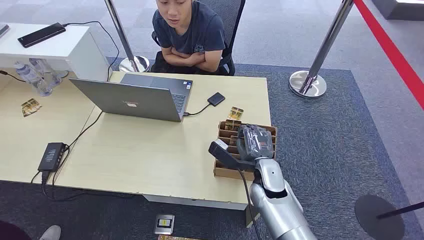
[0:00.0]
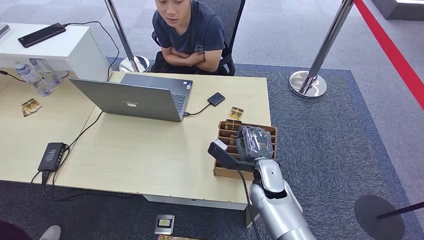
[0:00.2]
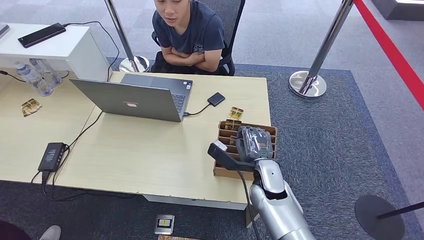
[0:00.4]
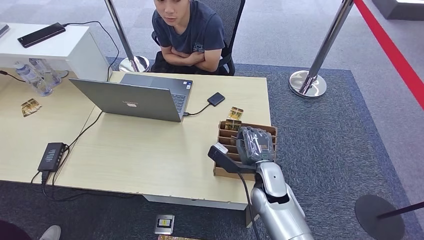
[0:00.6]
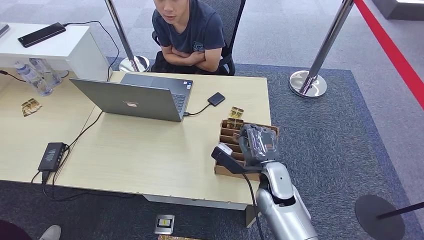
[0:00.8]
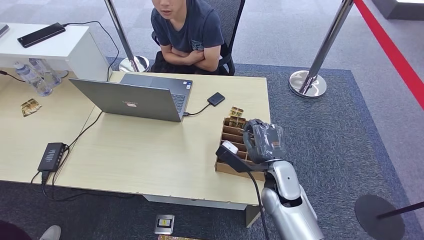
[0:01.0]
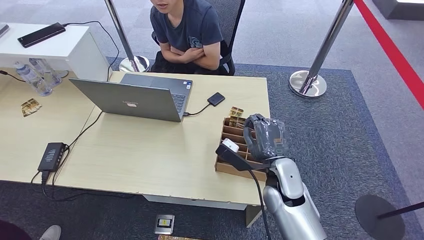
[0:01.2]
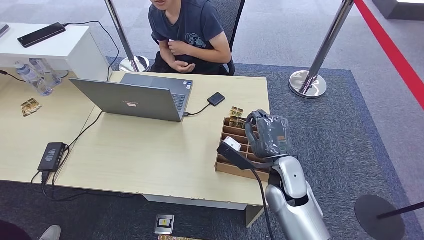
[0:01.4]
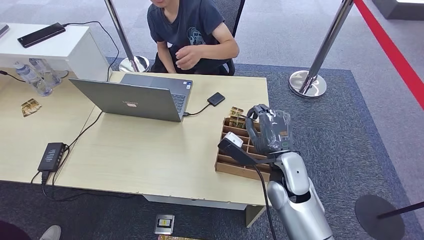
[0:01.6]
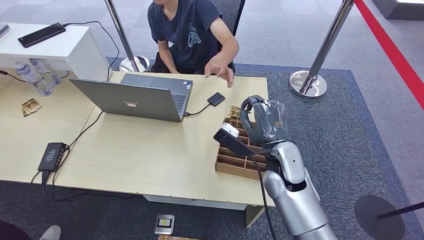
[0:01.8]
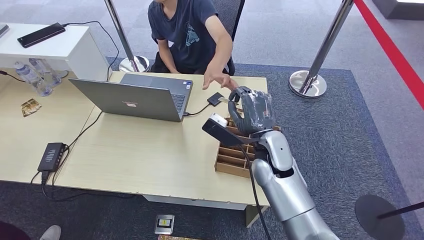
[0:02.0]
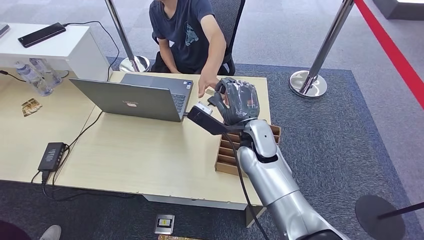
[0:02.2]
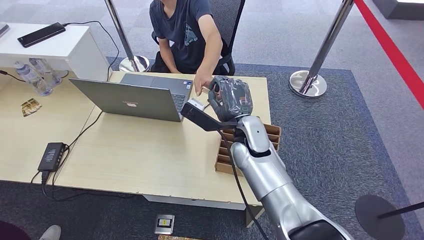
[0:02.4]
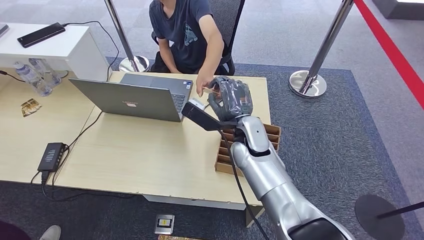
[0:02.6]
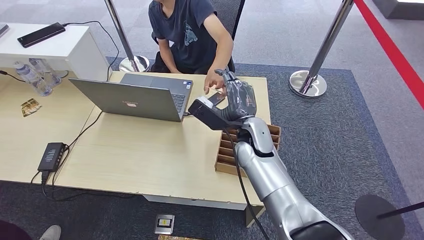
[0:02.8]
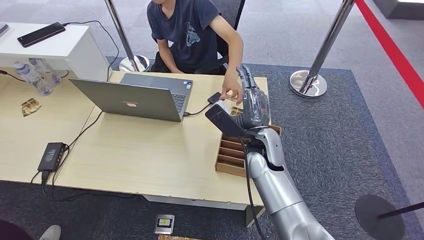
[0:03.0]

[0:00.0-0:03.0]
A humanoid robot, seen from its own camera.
Step, 0:00.0 to 0:01.6: Pick up the key card from the card box.
Step, 0:02.0 to 0:03.0: Hand the key card to the target.
0:01.6 to 0:03.0: The right hand goes roughly 5 cm forward and to the left.

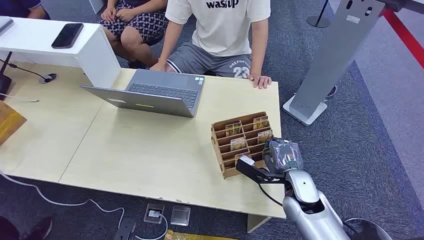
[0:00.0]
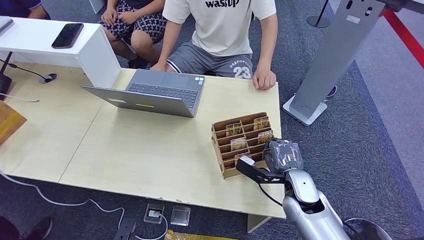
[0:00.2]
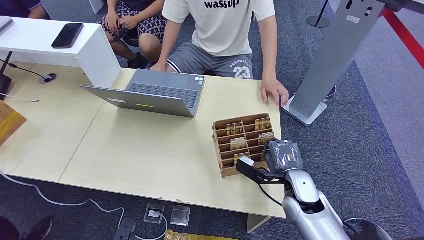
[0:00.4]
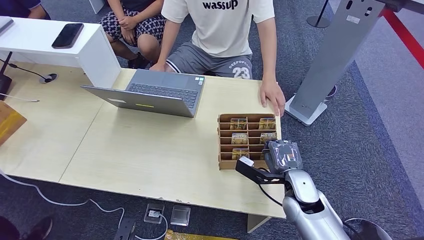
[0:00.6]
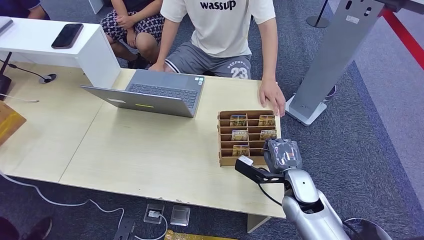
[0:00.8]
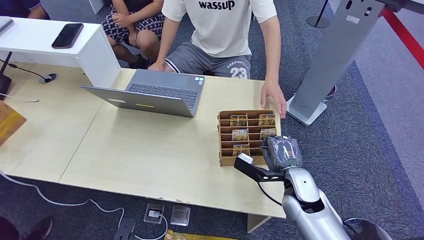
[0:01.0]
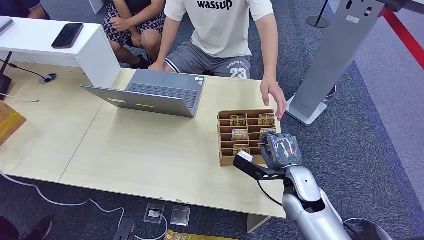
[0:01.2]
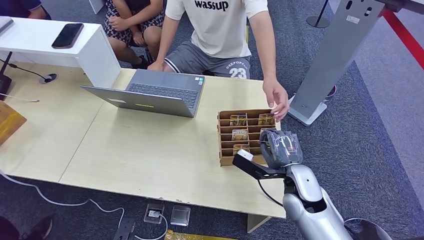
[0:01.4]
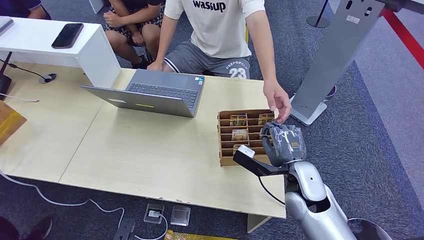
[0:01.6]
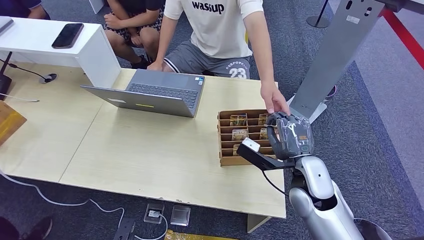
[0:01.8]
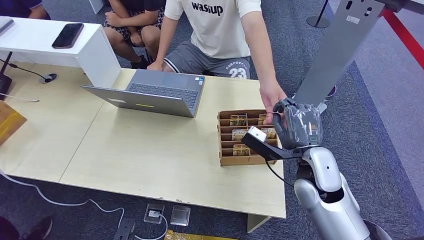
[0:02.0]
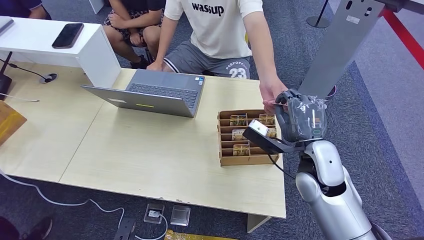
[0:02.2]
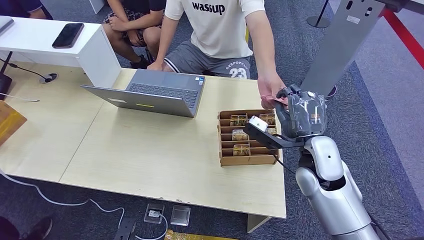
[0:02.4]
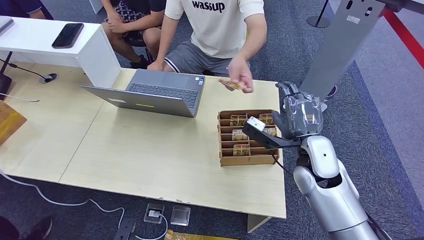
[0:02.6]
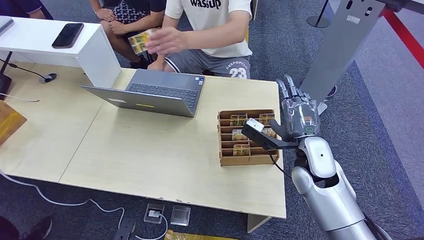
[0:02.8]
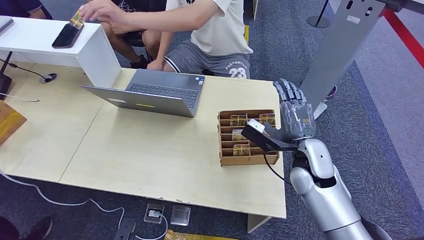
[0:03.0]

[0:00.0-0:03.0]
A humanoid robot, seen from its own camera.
Step, 0:00.0 to 0:01.6: Pick up the key card from the card box.
Step, 0:02.2 to 0:03.0: Hand the key card to the target.
0:01.6 to 0:03.0: The right hand ends up some 5 cm from where it was.

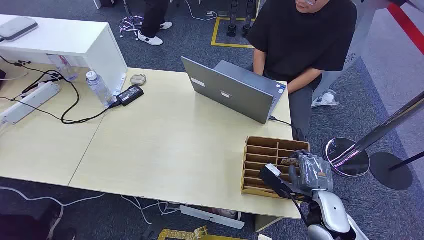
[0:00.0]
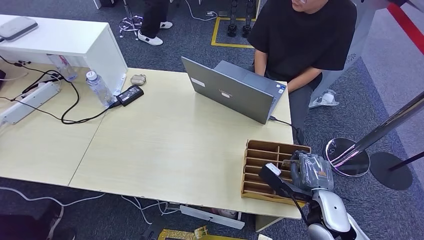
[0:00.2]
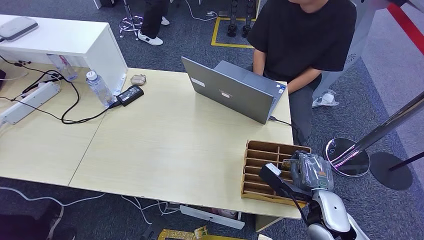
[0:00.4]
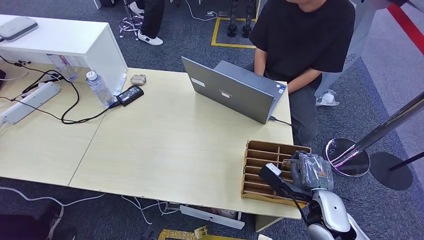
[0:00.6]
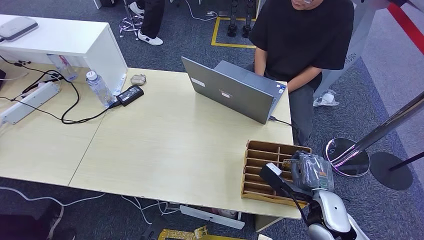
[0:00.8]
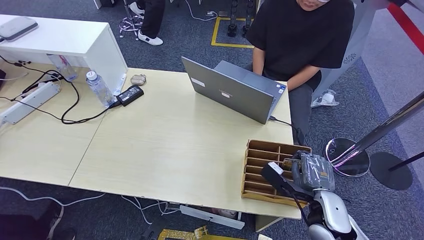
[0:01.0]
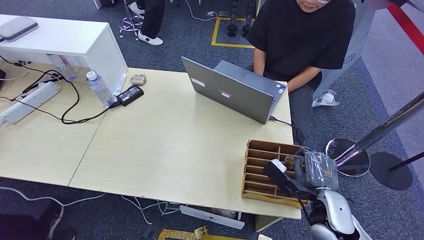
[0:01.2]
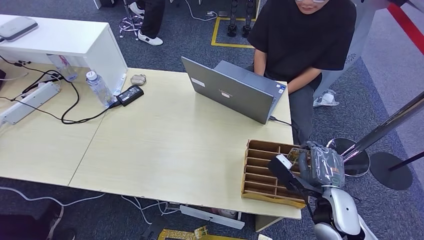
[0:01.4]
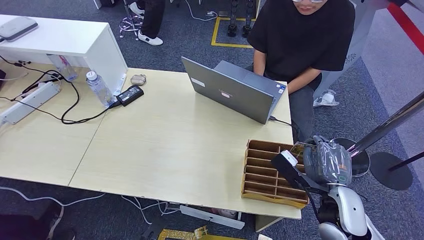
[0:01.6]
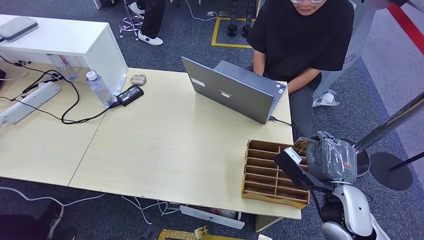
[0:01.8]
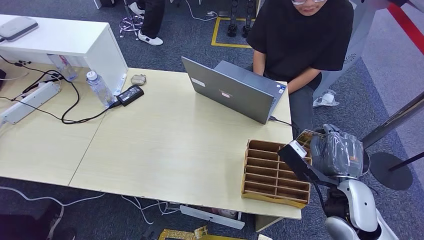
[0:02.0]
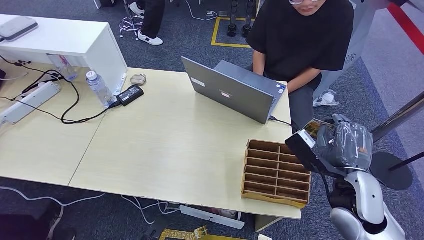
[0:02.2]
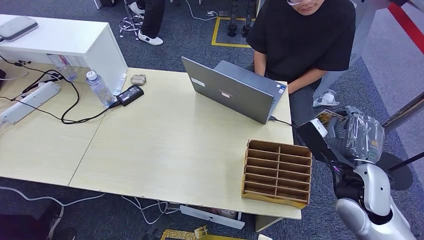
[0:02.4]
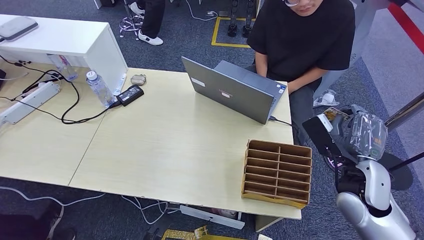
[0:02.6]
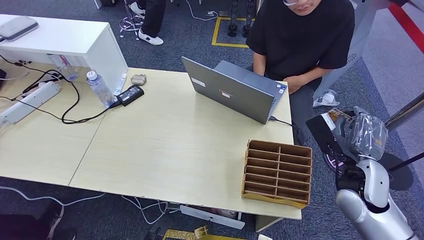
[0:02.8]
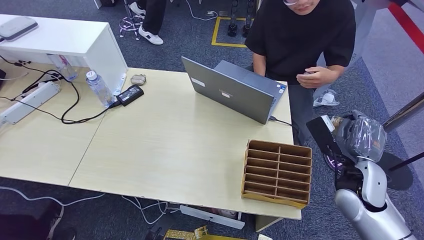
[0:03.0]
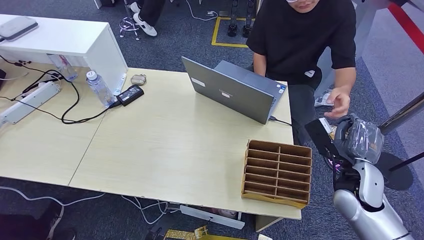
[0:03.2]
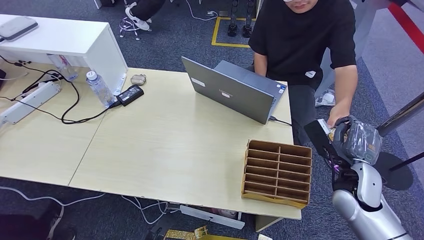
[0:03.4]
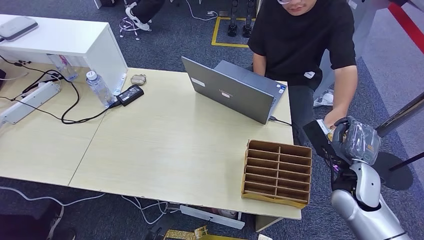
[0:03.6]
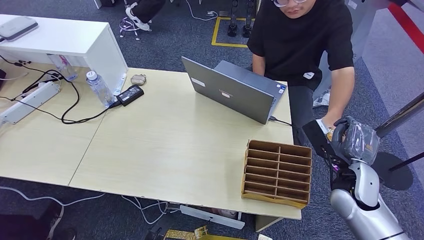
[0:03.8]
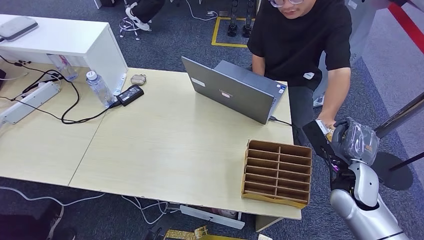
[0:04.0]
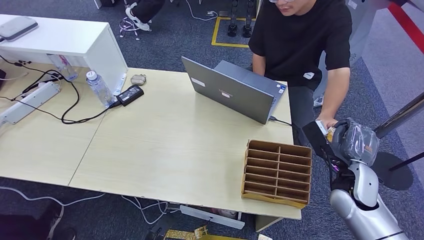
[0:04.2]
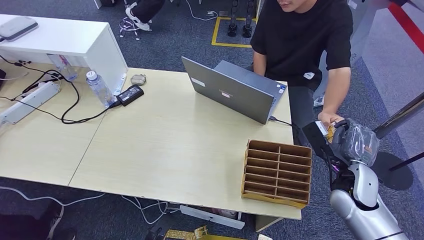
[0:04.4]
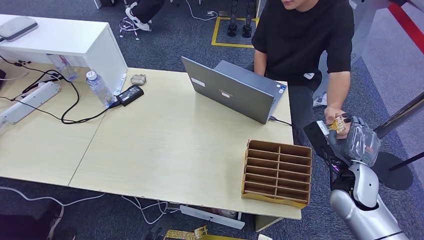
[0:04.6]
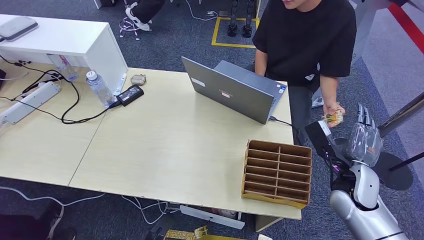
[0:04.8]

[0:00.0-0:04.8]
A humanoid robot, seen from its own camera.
Step, 0:00.0 to 0:02.2: Pick up the key card from the card box.
Step, 0:02.4 to 0:04.8: Hand the key card to the target.
0:01.6 to 0:03.2: The right hand goes about 5 cm forward.
0:03.2 to 0:04.8: The hands move only a little.

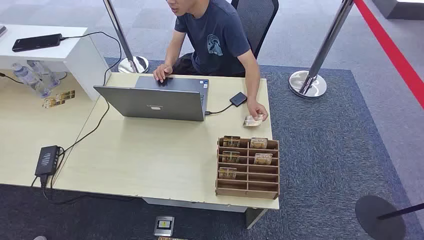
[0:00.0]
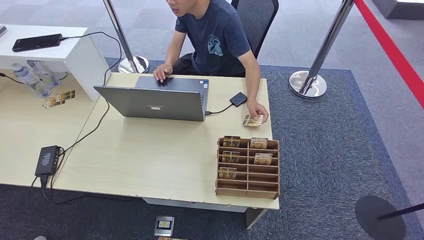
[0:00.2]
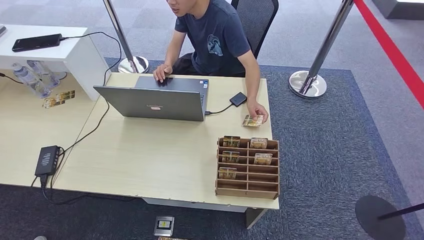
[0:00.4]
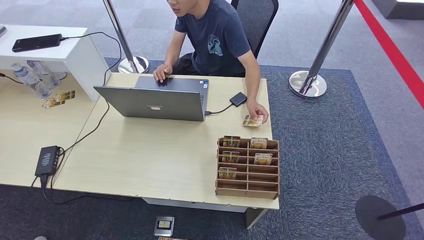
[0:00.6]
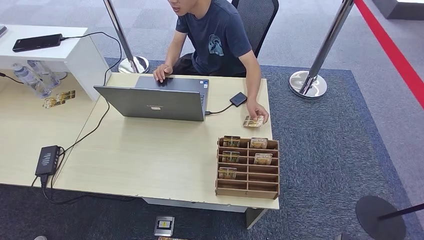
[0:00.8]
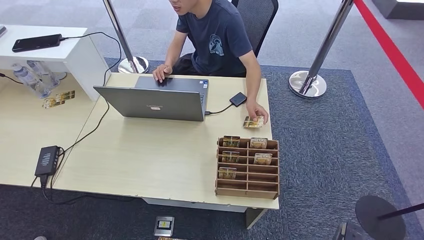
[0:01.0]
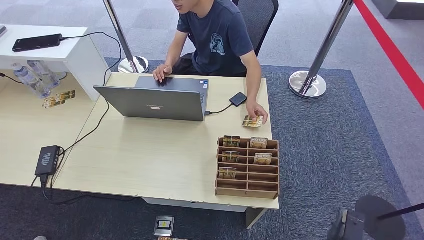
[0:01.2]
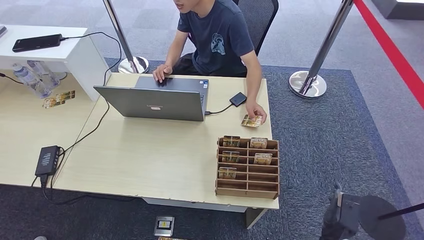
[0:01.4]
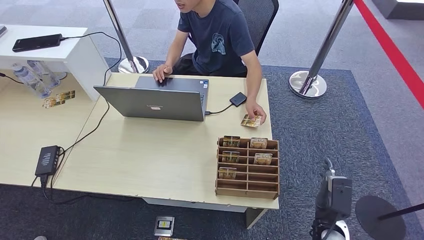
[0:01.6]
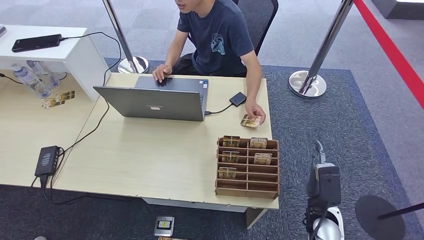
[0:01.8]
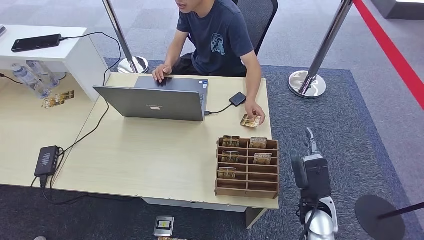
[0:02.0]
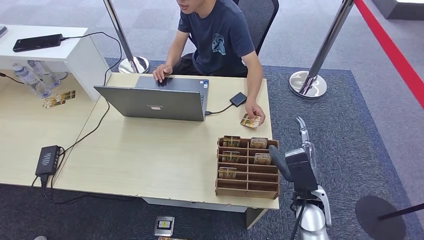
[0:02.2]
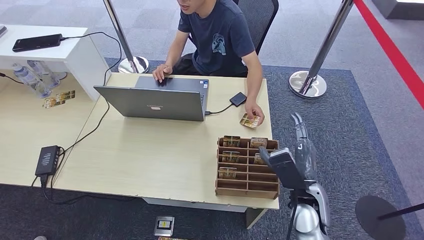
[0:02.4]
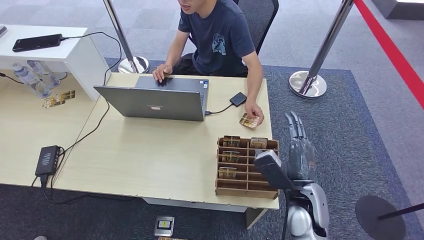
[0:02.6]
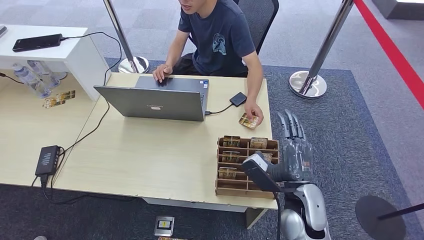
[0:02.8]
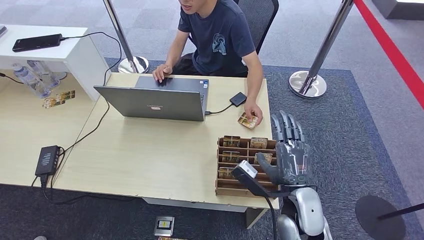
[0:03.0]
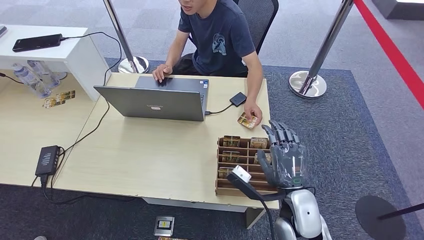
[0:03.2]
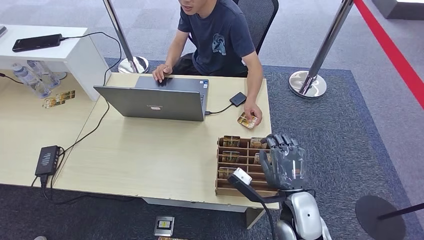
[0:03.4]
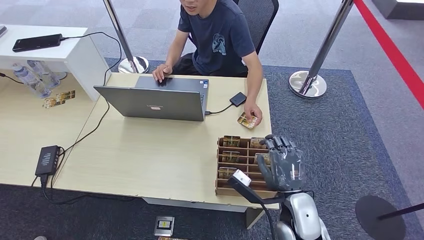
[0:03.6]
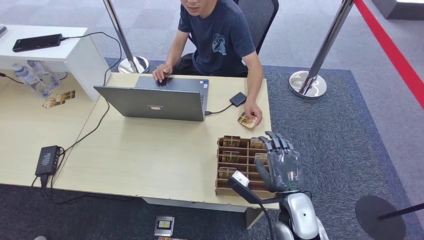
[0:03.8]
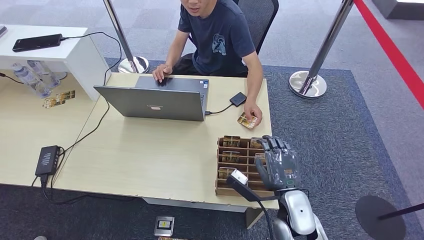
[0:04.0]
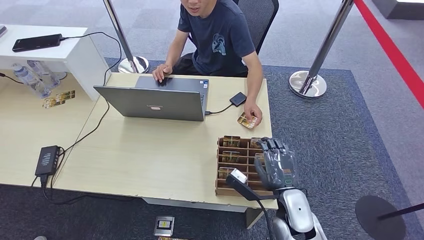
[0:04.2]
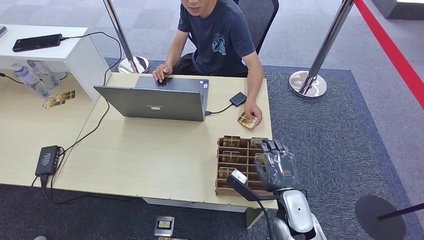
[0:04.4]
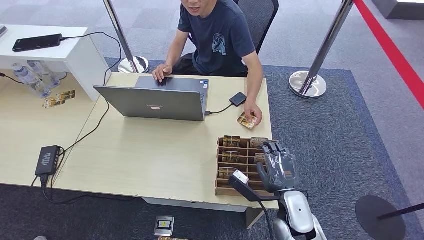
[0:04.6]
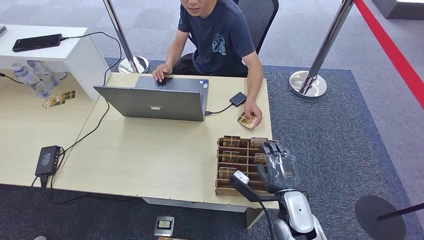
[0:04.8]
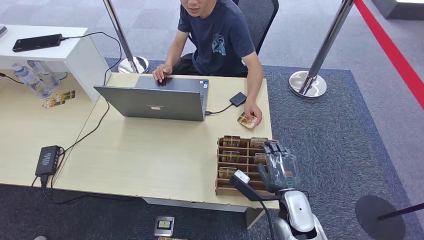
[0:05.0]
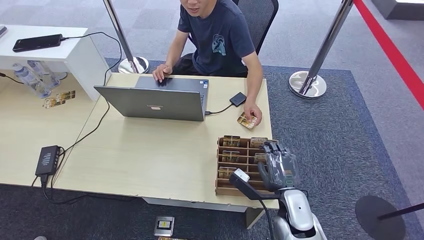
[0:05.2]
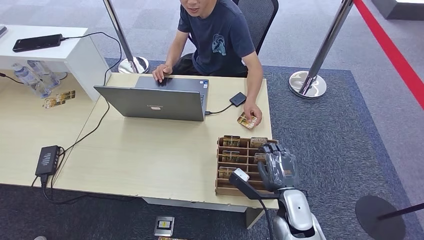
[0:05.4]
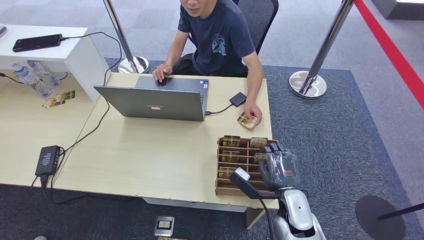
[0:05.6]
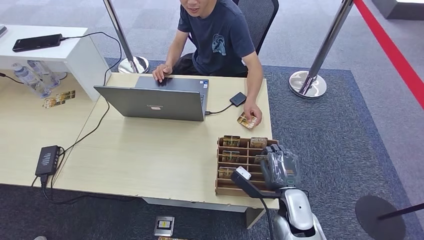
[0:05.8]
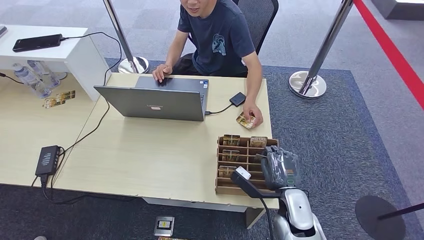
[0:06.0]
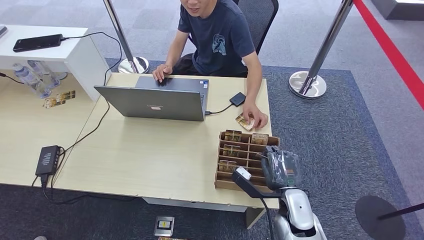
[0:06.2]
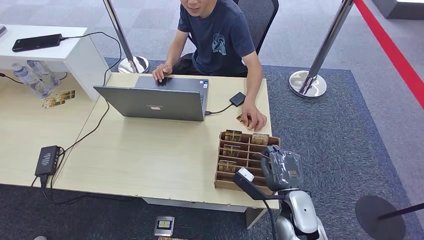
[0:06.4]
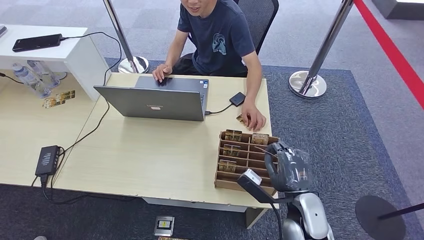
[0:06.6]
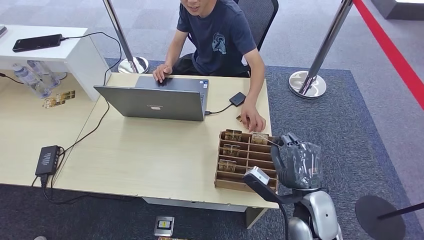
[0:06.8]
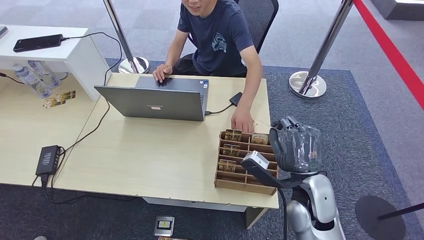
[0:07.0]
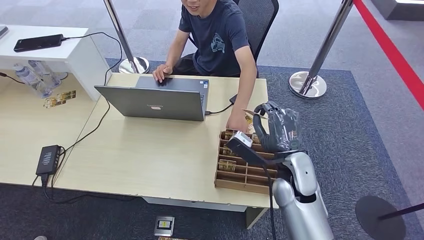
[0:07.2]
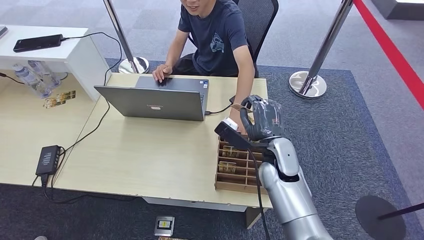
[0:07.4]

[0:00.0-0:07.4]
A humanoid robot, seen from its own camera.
Step, 0:00.0 to 0:07.2: Pick up the key card from the card box.
0:01.4 to 0:03.0: The right hand heads upward and to the left, covering roughly 25 cm.
0:03.0 to 0:04.4: The right hand is displaced downward by some 5 cm.
0:04.4 to 0:06.0: Both hands stay put.
0:06.0 to 0:07.4: The right hand heads forward and upward, covering some 15 cm.
